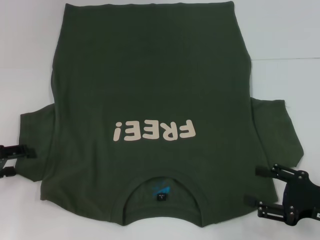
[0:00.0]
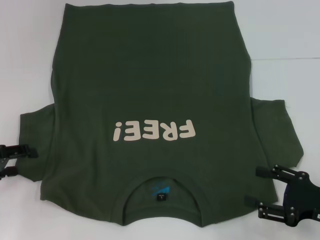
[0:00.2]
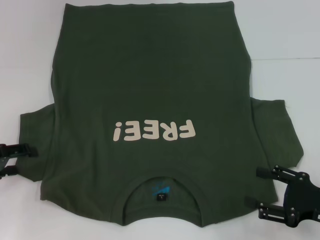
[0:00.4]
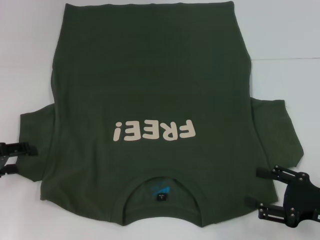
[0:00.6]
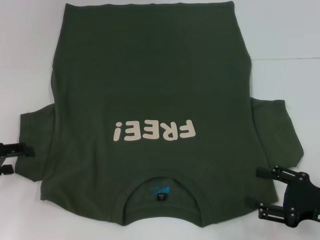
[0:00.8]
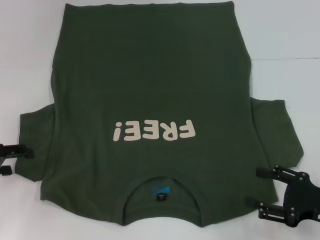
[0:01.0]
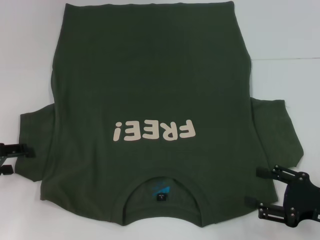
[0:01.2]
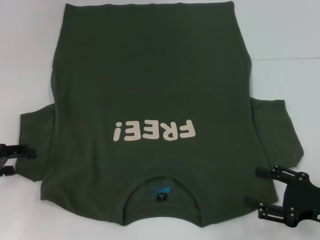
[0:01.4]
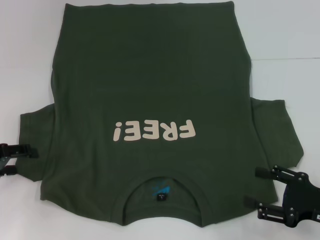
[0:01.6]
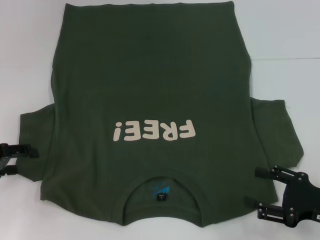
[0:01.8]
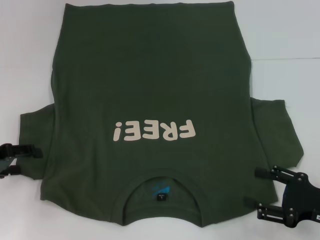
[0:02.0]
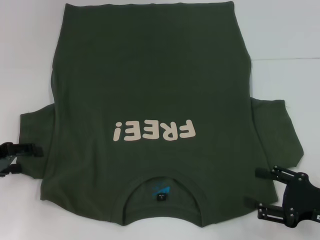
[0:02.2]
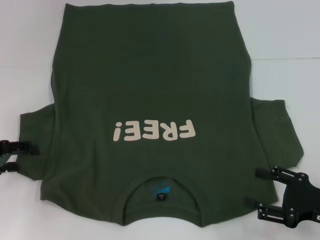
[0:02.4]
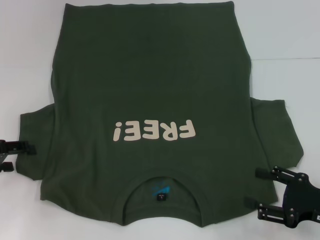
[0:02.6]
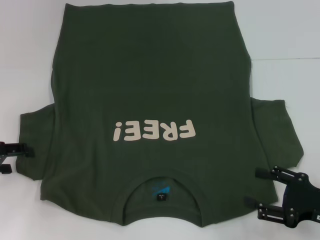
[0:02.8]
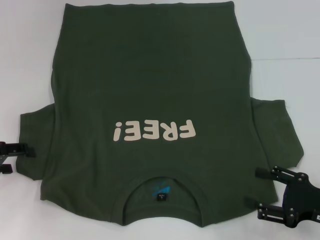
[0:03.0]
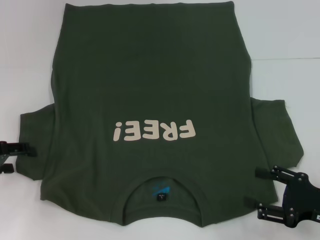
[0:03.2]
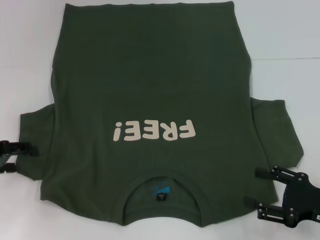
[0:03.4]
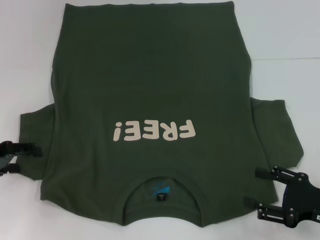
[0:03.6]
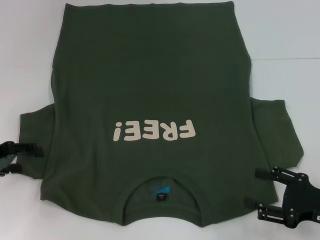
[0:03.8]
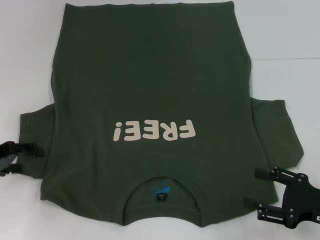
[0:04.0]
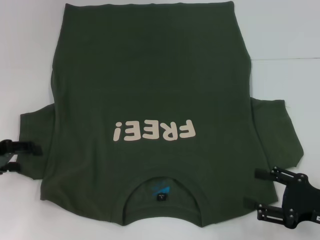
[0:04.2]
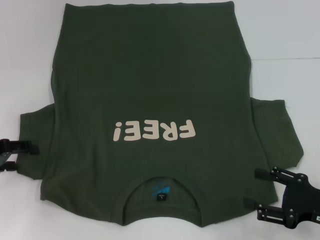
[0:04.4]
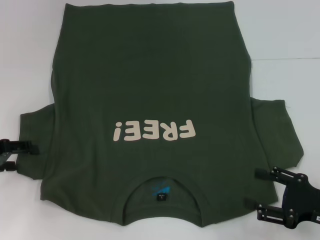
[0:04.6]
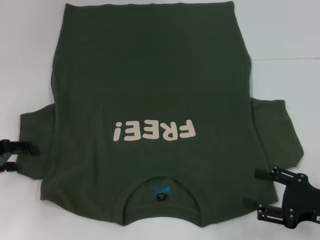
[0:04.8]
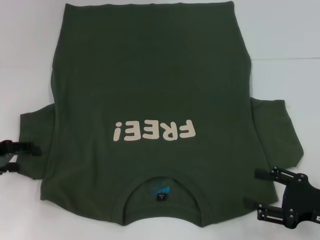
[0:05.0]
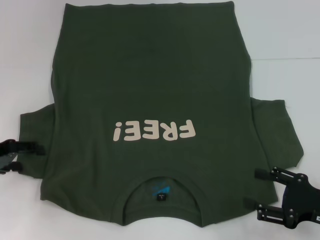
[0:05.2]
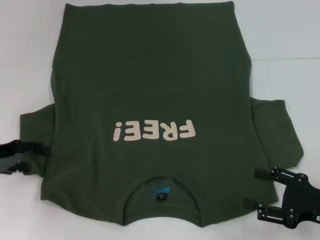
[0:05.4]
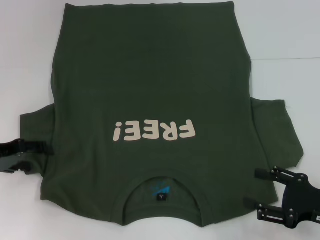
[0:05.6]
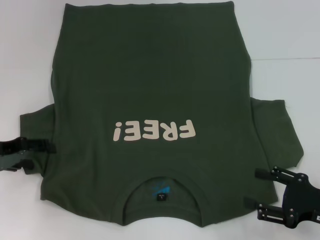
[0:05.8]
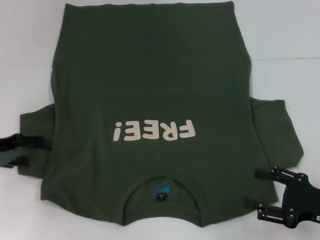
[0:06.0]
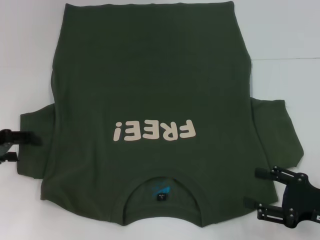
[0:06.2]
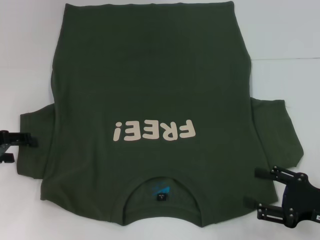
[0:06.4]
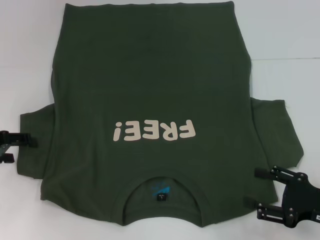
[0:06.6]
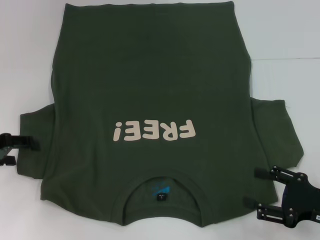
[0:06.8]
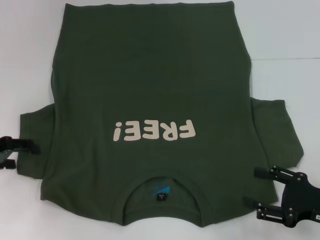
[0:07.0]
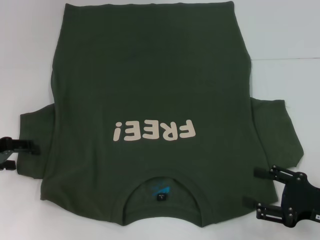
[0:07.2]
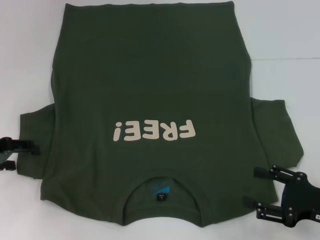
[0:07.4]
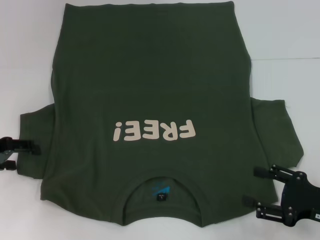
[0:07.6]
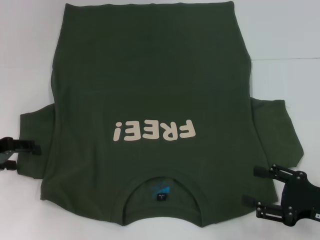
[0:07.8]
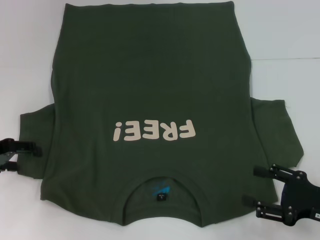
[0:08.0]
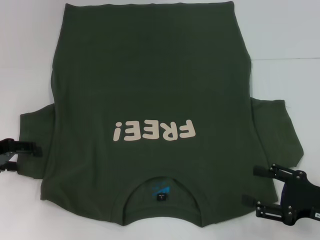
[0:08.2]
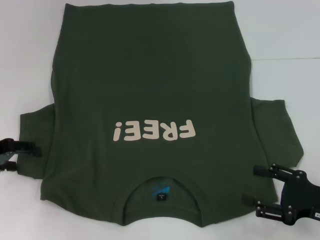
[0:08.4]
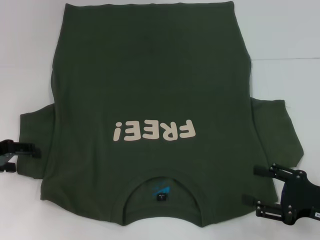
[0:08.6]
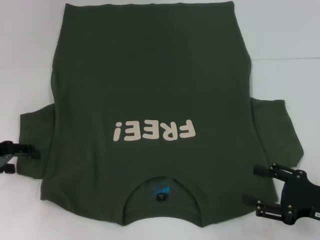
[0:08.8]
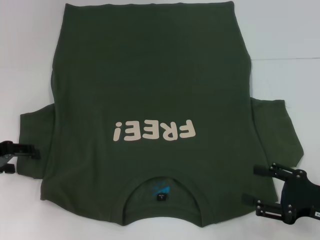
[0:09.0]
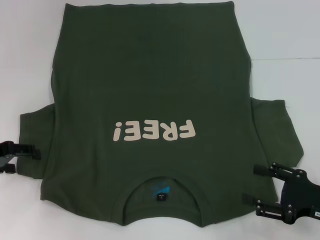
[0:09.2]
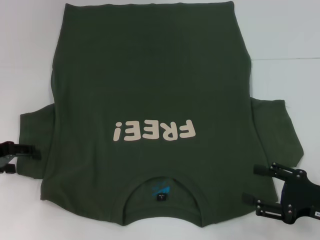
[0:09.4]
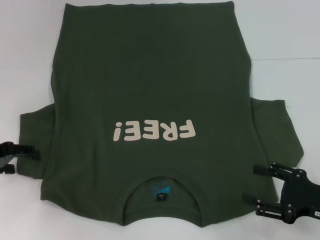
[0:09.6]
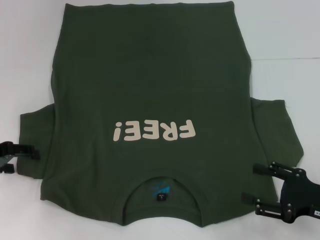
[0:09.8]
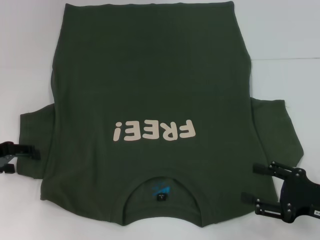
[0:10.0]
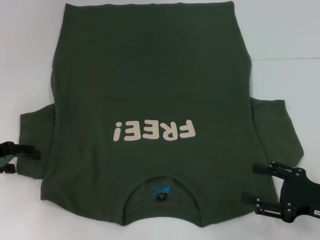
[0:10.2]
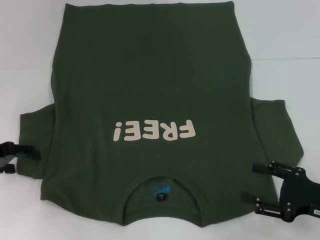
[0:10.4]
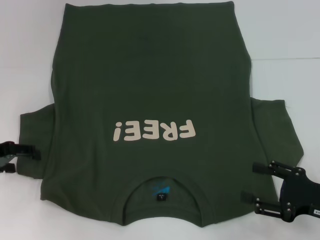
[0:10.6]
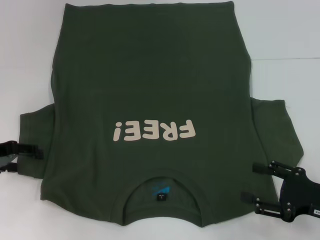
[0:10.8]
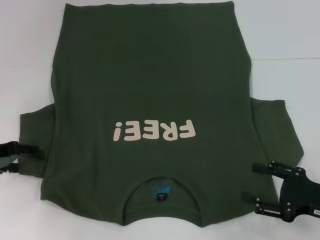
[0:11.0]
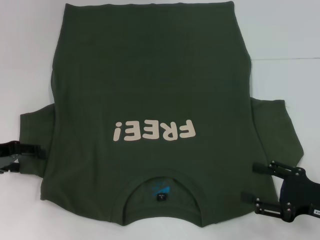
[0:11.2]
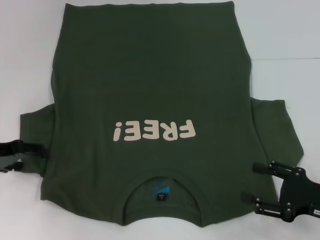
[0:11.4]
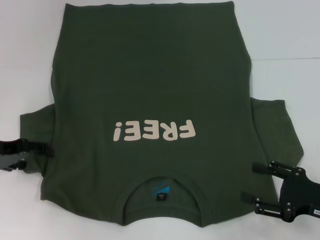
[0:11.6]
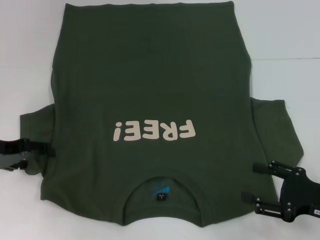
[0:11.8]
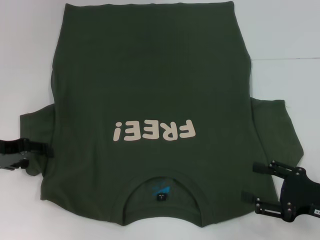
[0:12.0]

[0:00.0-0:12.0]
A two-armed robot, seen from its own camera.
0:00.0 to 0:01.6: Neither gripper changes place.
0:01.6 to 0:04.4: Neither gripper changes place.
0:04.4 to 0:07.6: The grippers stay close to where they were, moving slightly.
0:07.6 to 0:10.4: Both grippers stay about where they are.
0:10.4 to 0:12.0: The grippers make only small movements.

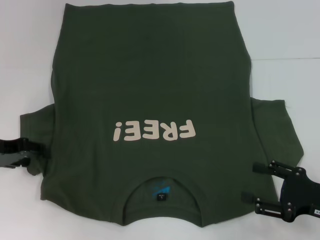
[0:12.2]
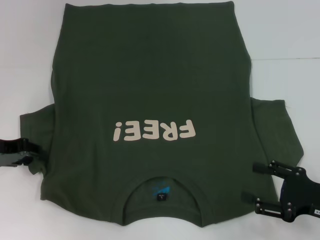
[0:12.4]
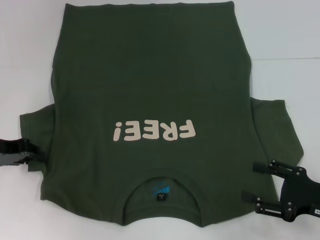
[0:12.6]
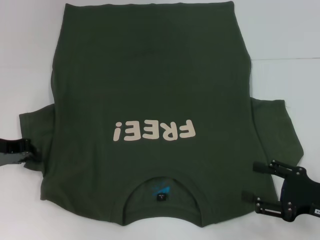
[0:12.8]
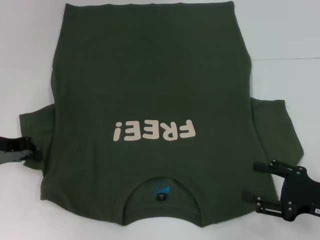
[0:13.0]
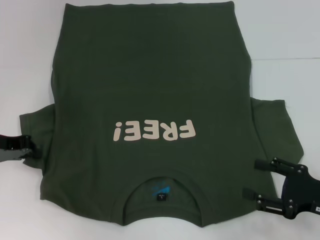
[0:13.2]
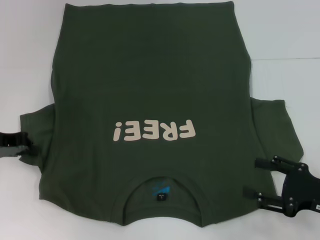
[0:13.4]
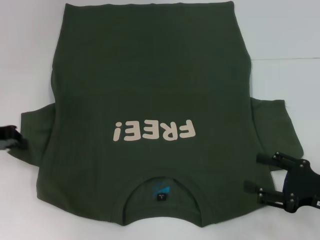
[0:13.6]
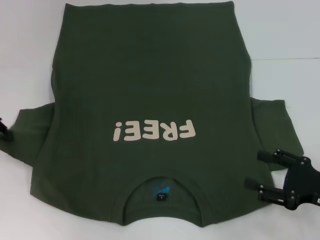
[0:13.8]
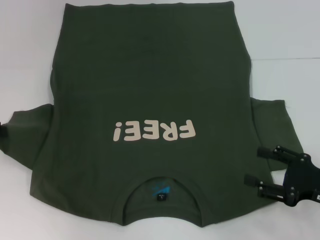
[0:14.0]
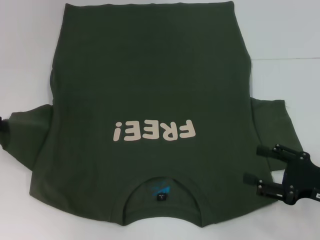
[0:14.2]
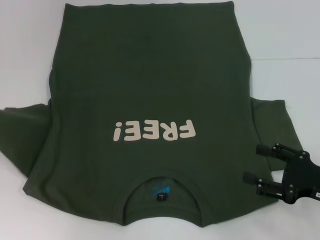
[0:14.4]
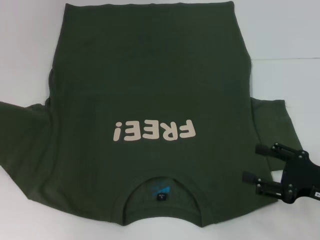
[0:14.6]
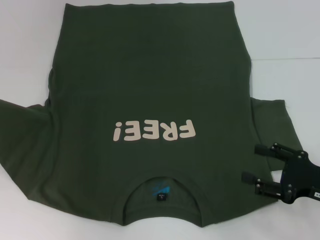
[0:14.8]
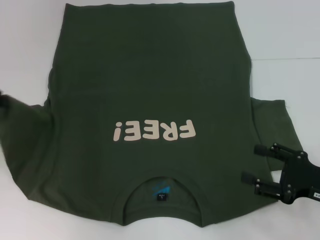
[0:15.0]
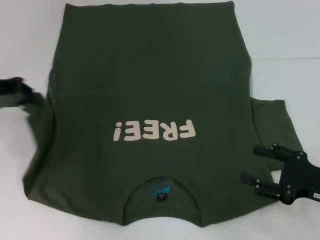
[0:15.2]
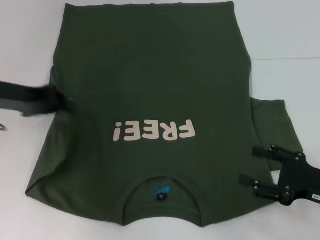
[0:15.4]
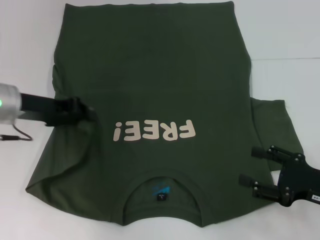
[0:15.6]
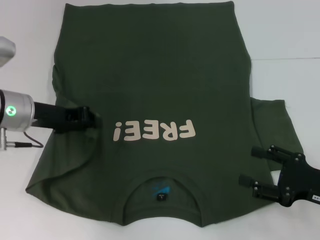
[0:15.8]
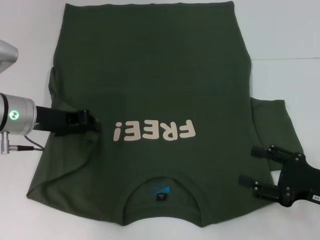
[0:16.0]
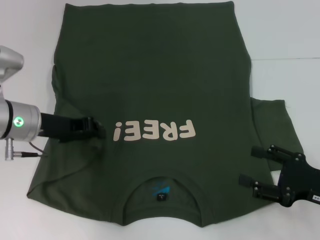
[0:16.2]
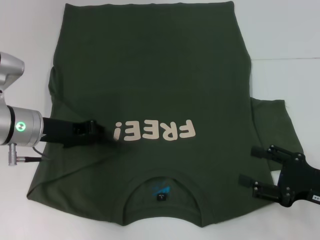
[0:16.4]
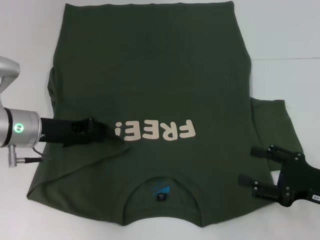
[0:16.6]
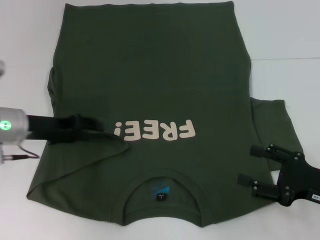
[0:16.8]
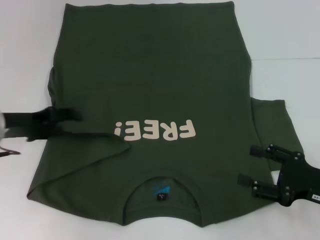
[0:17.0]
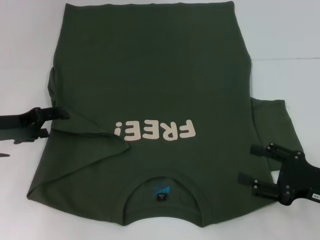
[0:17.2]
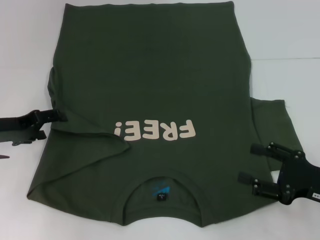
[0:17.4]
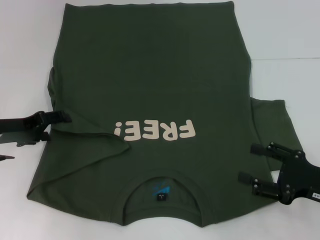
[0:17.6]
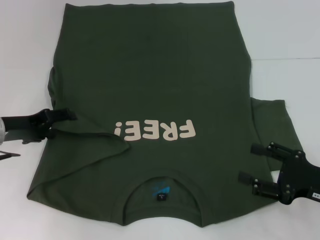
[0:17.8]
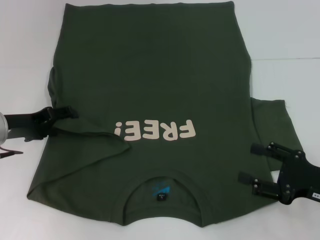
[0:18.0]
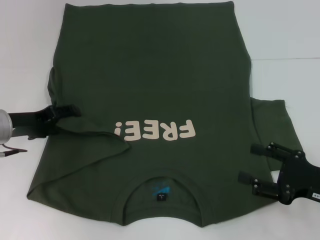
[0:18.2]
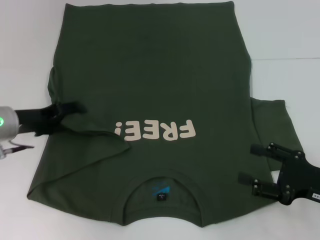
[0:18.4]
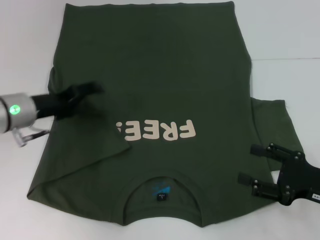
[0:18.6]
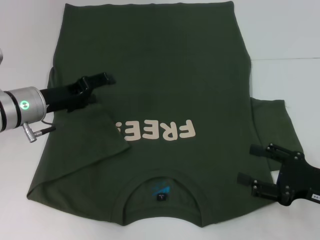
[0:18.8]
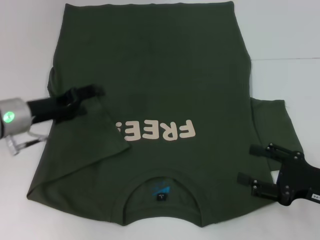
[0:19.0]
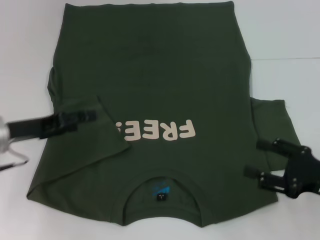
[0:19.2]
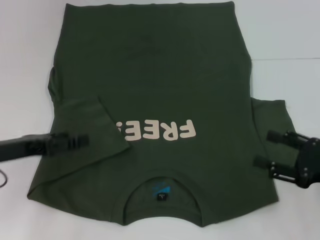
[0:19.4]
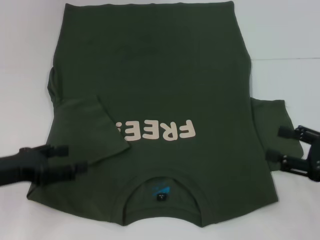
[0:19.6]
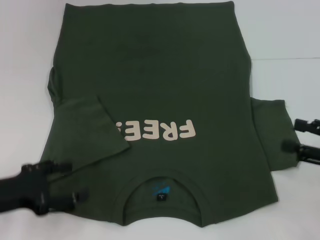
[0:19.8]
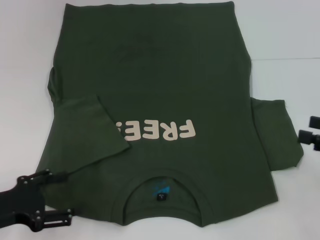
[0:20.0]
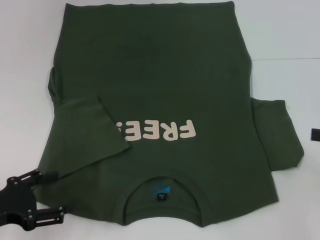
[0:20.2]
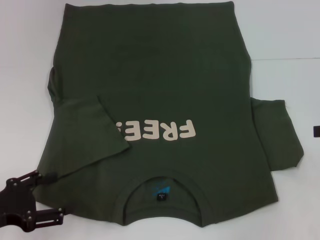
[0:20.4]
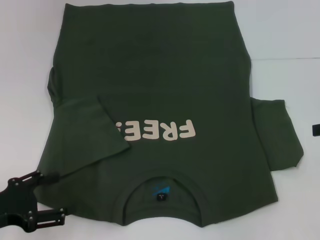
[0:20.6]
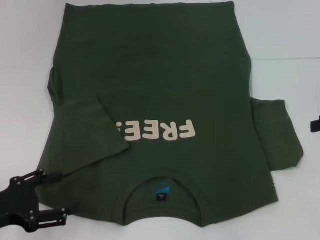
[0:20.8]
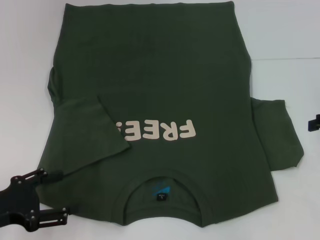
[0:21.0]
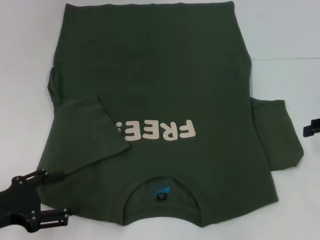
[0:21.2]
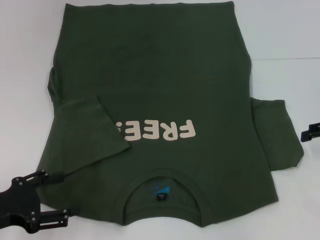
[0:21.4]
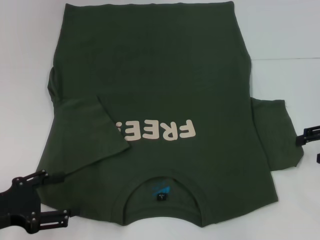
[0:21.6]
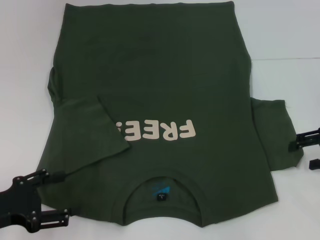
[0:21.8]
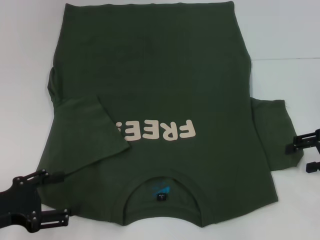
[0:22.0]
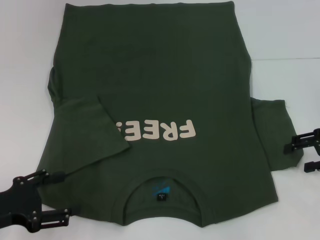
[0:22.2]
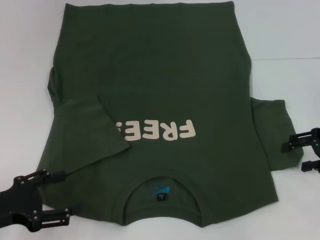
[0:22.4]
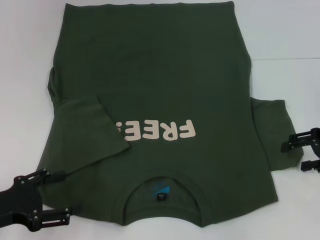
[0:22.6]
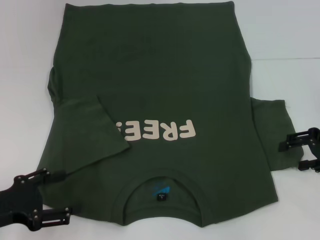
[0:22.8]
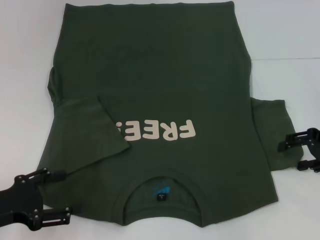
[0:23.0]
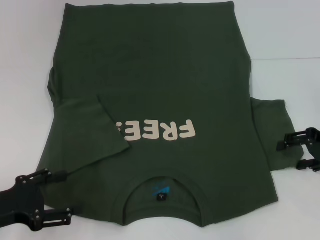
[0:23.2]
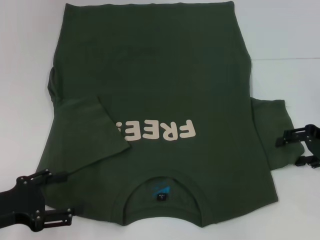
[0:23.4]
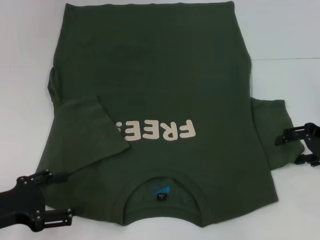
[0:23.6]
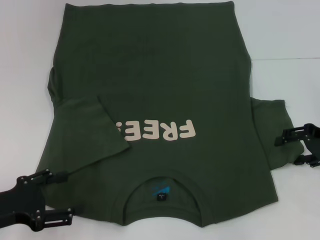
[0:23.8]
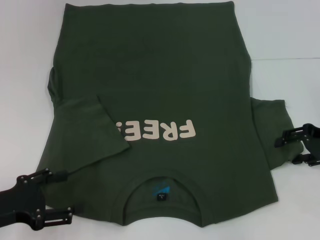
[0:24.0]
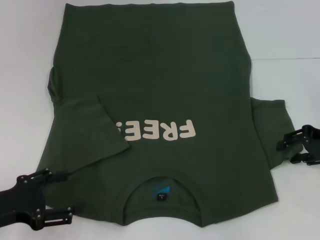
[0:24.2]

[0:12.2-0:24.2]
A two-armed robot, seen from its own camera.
Step, 0:12.2 to 0:16.4: Fold the bottom left sleeve with your left hand.
0:12.2 to 0:13.8: The left gripper changes place by some 5 cm, and closes up.
0:13.8 to 0:15.2: The left gripper shifts some 5 cm upward.
0:15.2 to 0:16.6: The left gripper shifts about 15 cm downward and to the right.
0:16.6 to 0:18.2: The left gripper ends up approximately 5 cm from where it was, and opens its fingers.
0:18.2 to 0:19.8: The right gripper heads upward and to the right, covering approximately 10 cm. Meanwhile the left gripper moves backward, approximately 15 cm.
0:19.8 to 0:21.2: The right gripper travels forward by about 10 cm.
0:21.2 to 0:24.2: The grippers move only a little.
